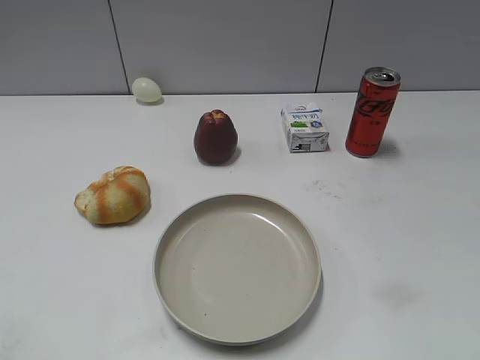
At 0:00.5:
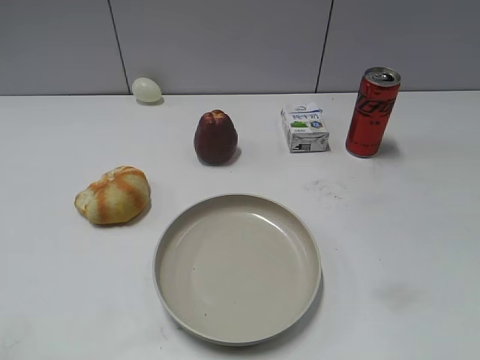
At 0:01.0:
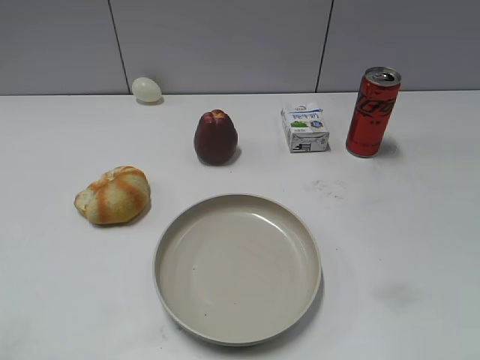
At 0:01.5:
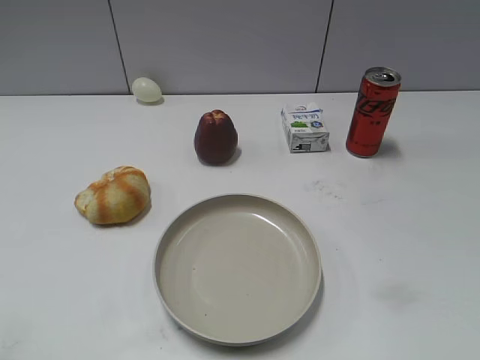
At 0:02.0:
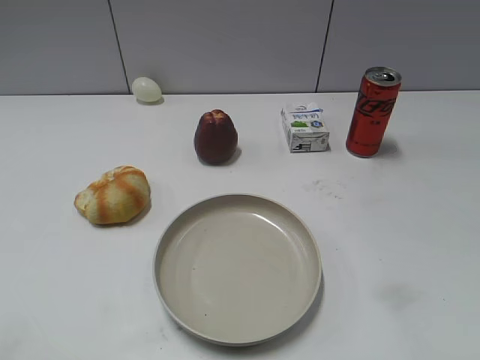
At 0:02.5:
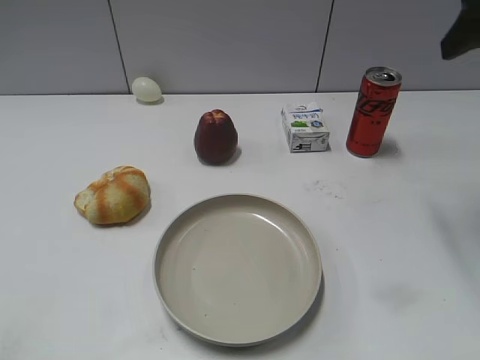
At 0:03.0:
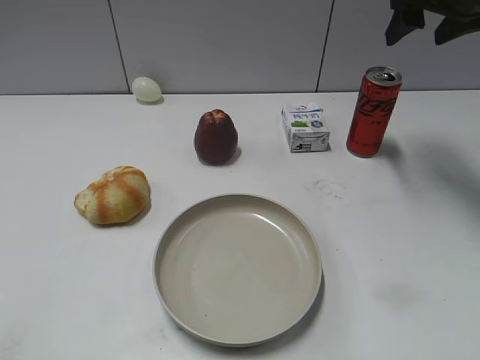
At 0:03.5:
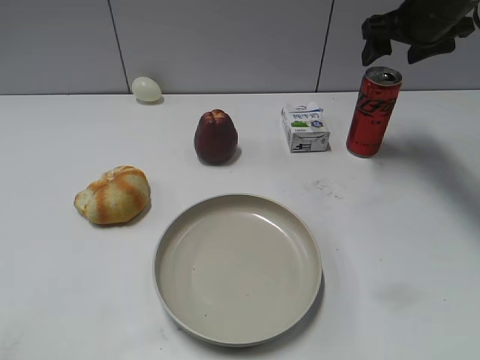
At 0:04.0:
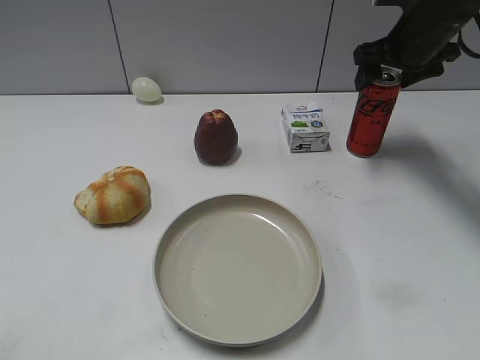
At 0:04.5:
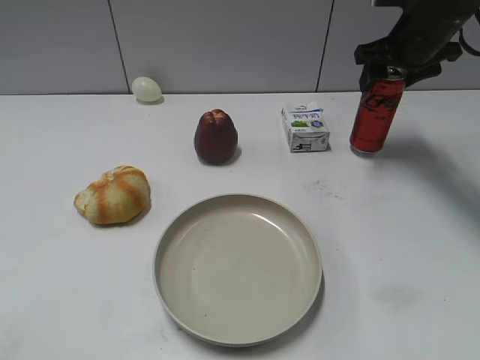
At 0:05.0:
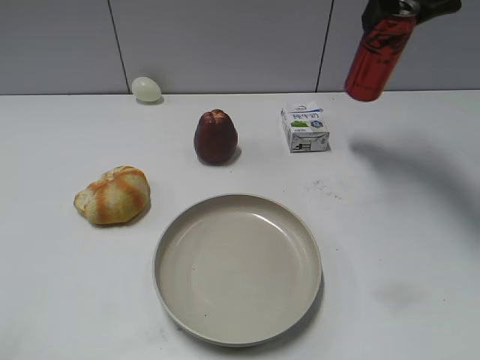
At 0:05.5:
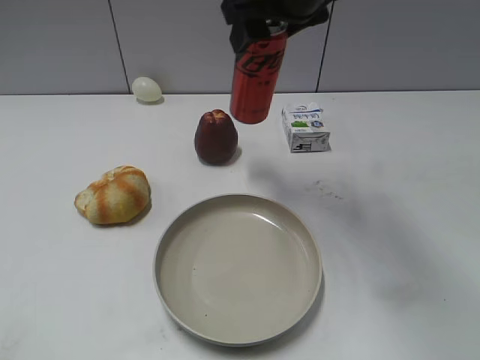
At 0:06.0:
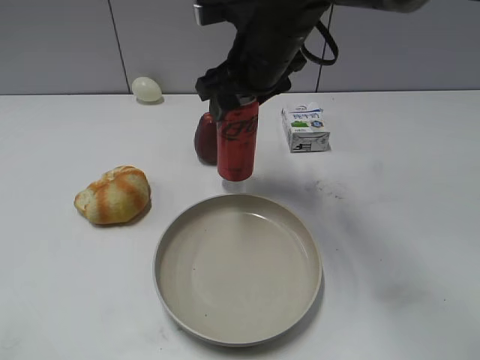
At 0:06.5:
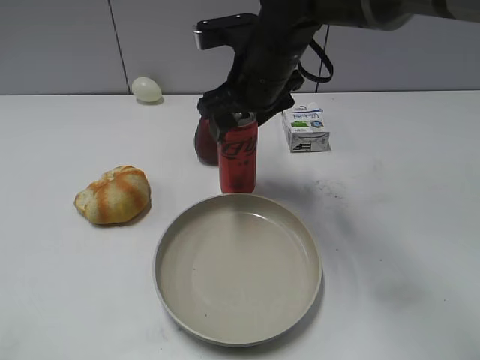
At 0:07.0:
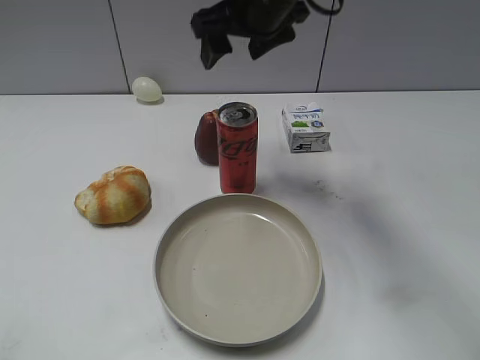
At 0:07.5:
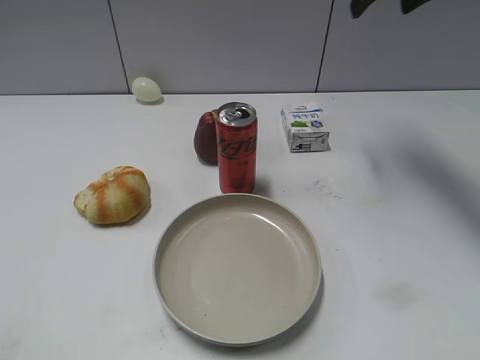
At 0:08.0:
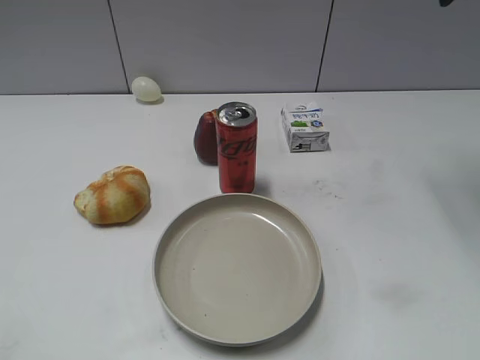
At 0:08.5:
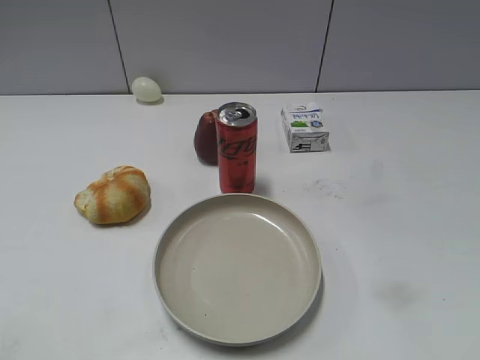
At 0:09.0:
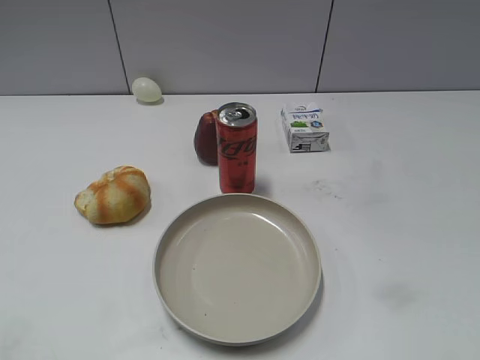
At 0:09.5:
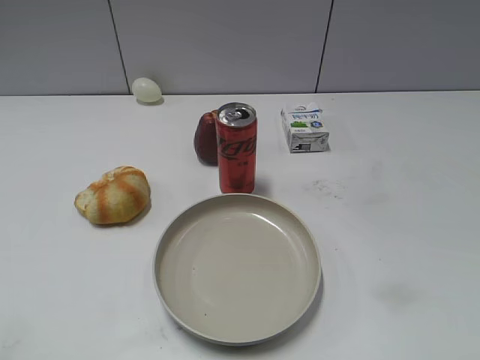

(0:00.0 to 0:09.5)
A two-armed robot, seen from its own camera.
Step, 0:01.5 - 0:04.5: Grasp the cola with right gripper.
Step, 0:05.0 - 0:06.5: Place the cola on the table with right gripper.
0:02.0 - 0:04.0: The right gripper is displaced forward by roughly 35 cm.
0:04.0 - 0:05.5: The right gripper moves to the left, upward and backward, some 20 cm, and closes up.
0:05.5 - 0:07.5: The right gripper heads to the right and forward, covering about 15 cm, and opens its fingers.
0:07.5 - 0:09.5: The right gripper moves backward, some 40 cm, and closes its fingers.

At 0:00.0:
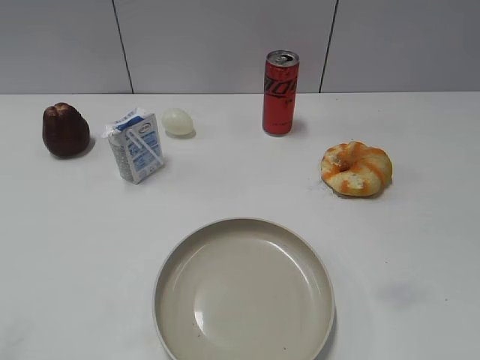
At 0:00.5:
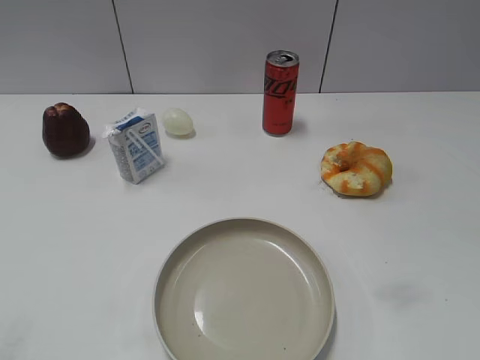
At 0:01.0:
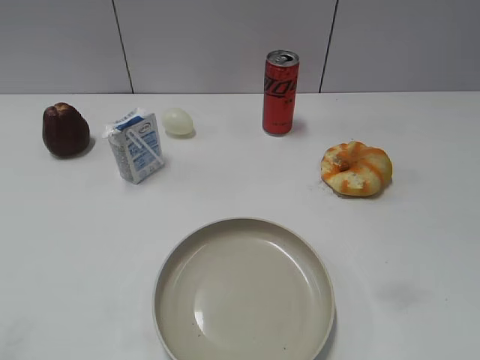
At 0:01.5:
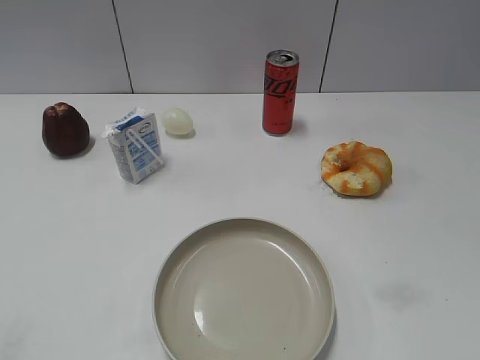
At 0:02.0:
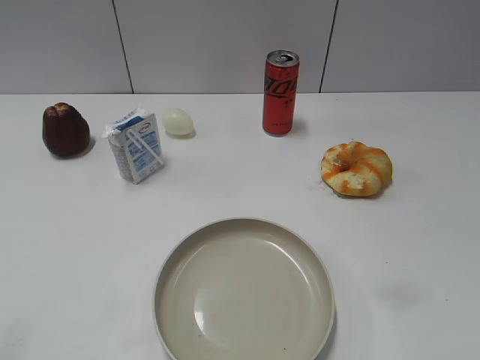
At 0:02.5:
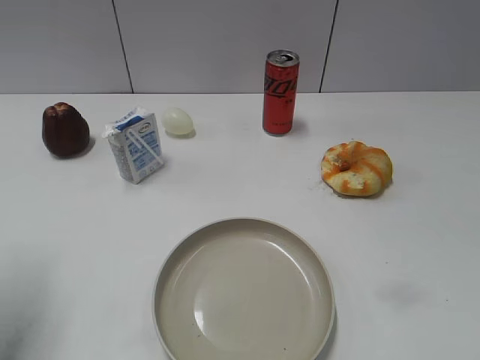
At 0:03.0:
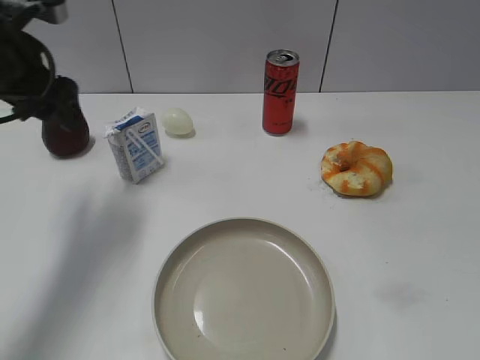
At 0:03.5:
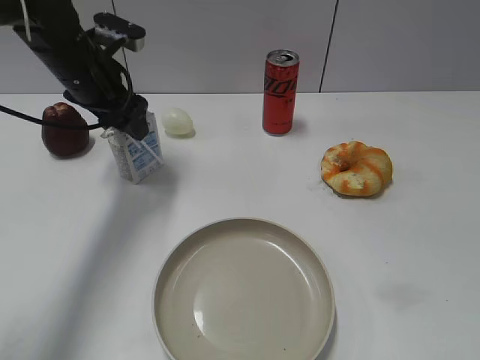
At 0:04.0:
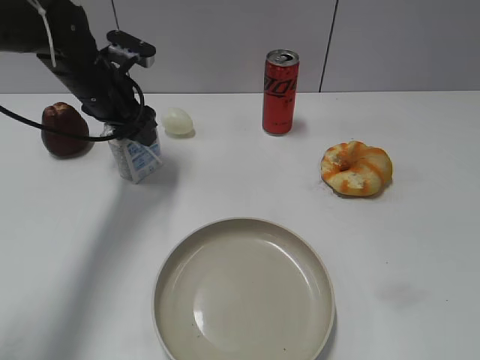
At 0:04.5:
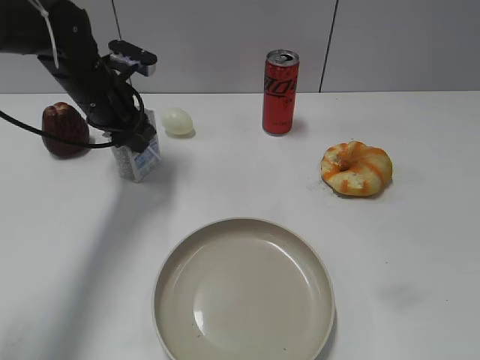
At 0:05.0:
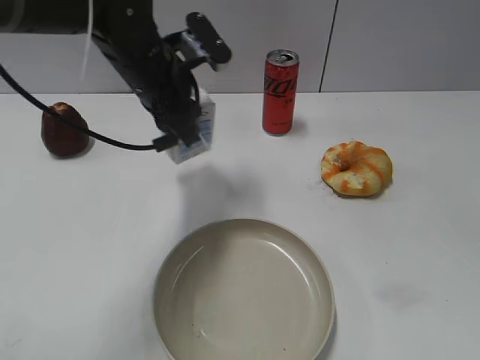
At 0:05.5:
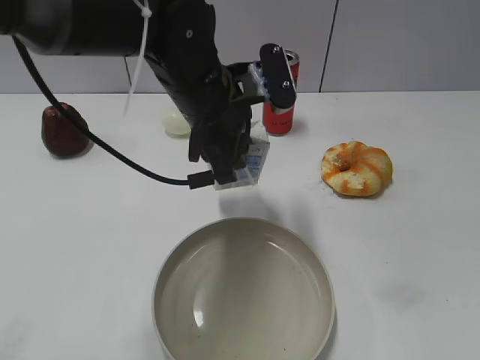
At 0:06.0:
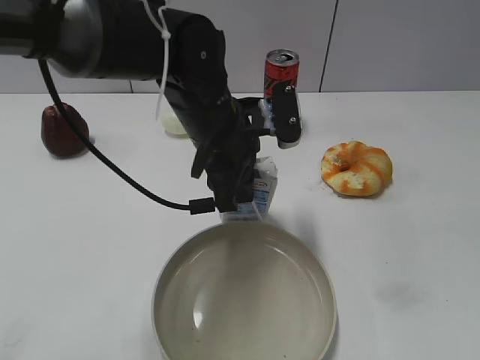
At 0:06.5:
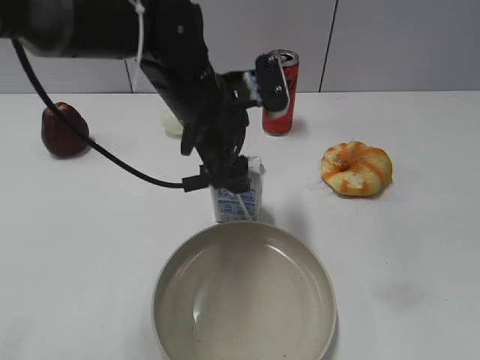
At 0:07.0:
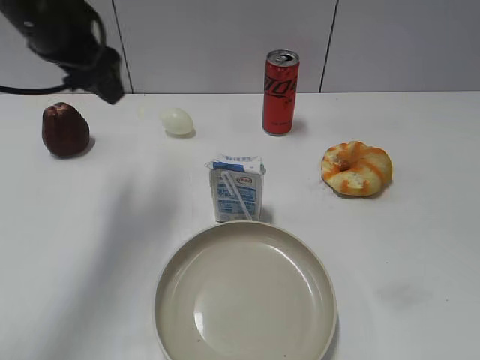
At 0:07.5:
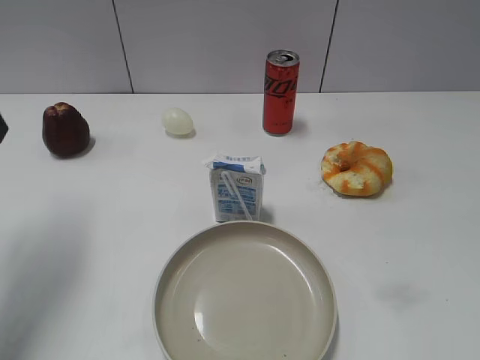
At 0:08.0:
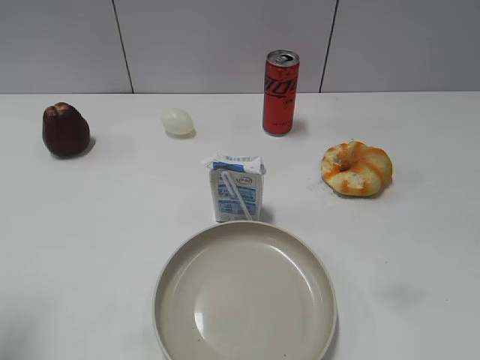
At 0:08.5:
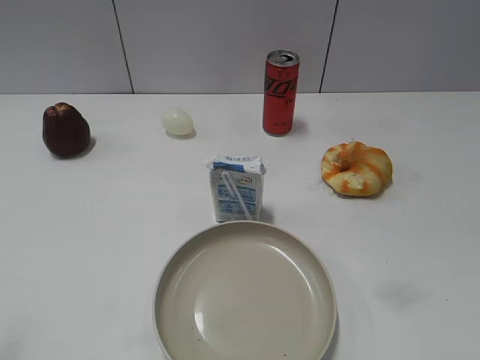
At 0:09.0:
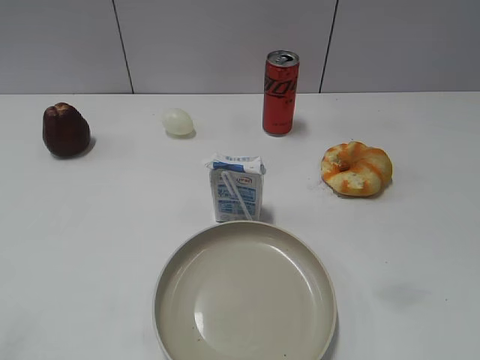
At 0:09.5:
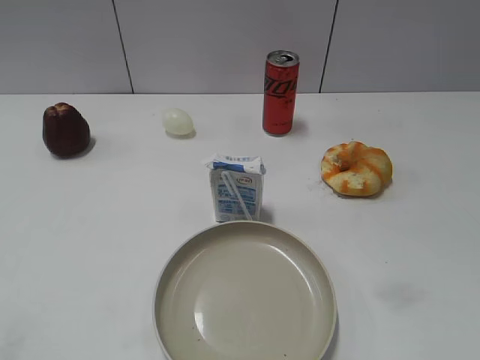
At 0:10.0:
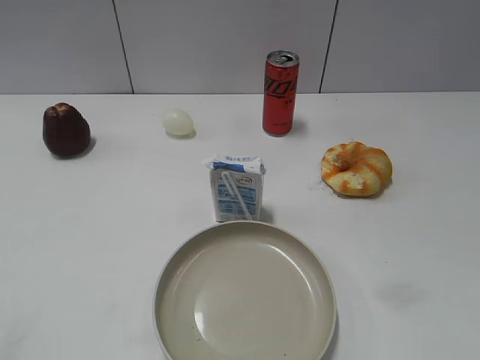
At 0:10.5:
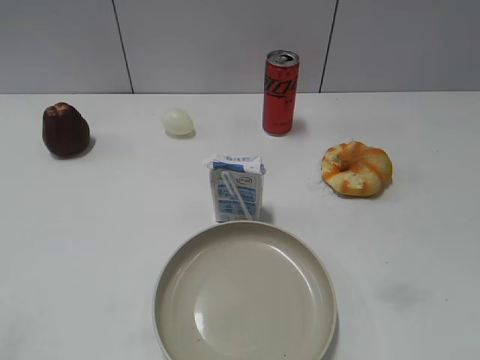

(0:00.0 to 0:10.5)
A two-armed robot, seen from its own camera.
Step, 0:01.5 - 0:04.5: Grasp the milk with left gripper.
Step, 0:05.0 - 0:06.0: Place the milk on the table with left gripper.
0:02.0 - 0:04.0: The left gripper moves forward, approximately 35 cm.
0:04.0 - 0:06.5: The left gripper travels to the right and backward by some 15 cm, and closes and opens again.
0:06.5 - 0:08.5: The left gripper travels to the left and backward by roughly 35 cm.
